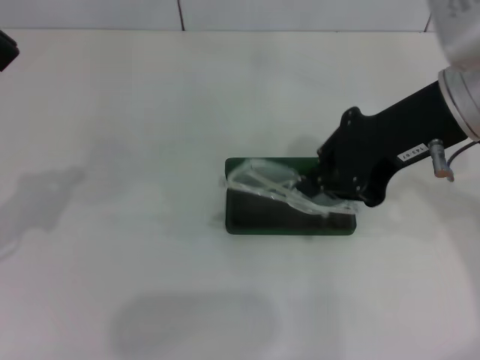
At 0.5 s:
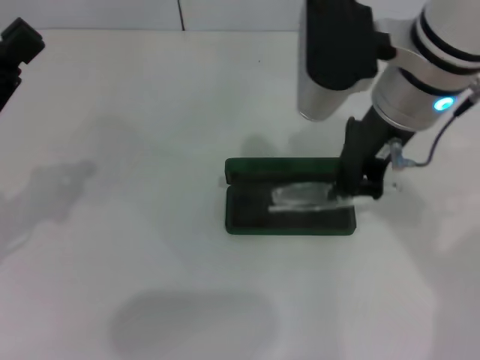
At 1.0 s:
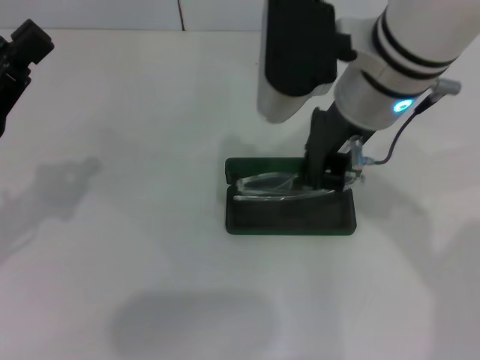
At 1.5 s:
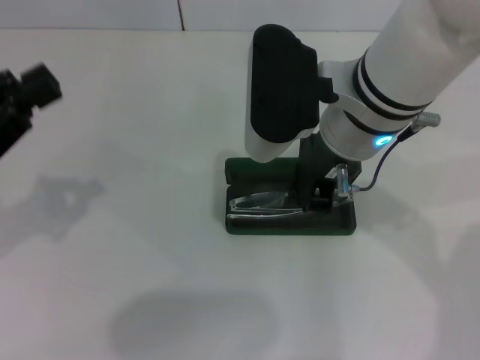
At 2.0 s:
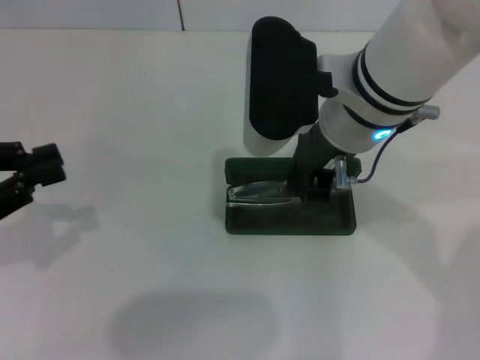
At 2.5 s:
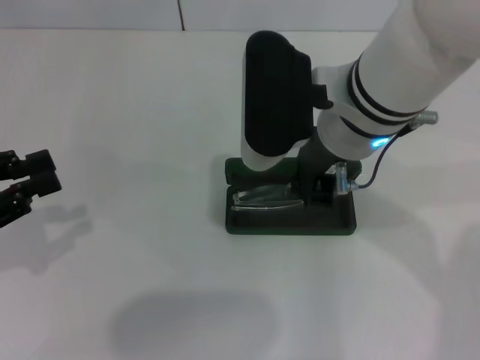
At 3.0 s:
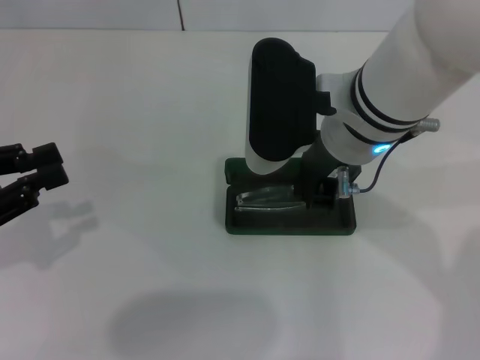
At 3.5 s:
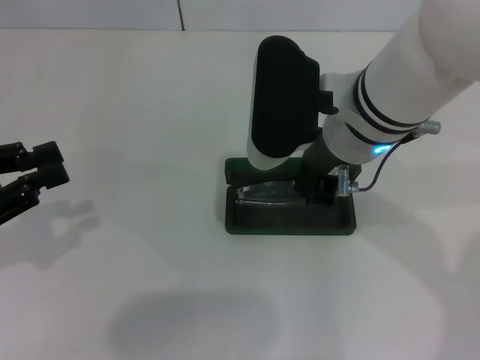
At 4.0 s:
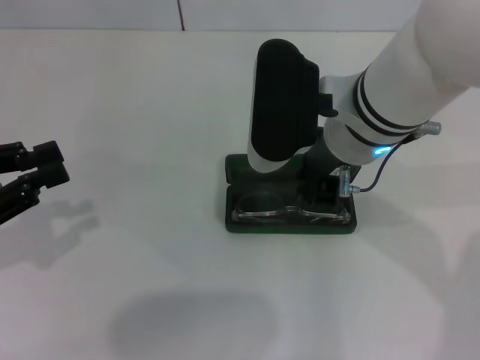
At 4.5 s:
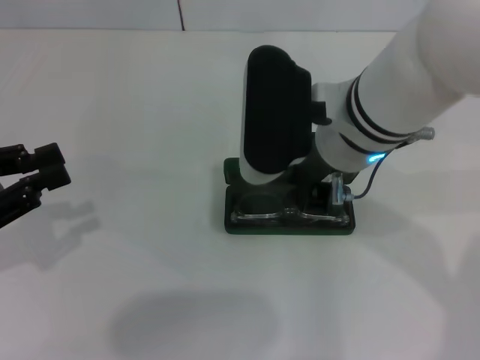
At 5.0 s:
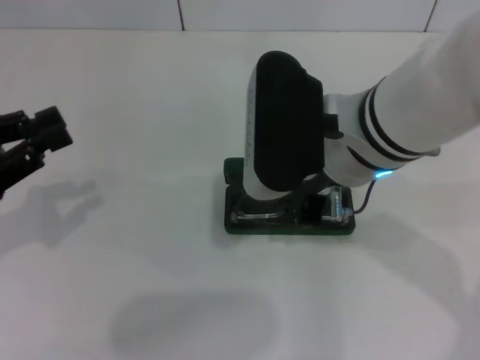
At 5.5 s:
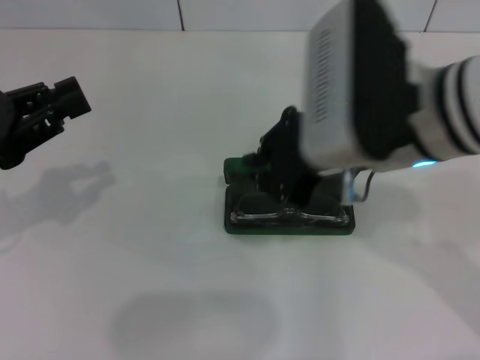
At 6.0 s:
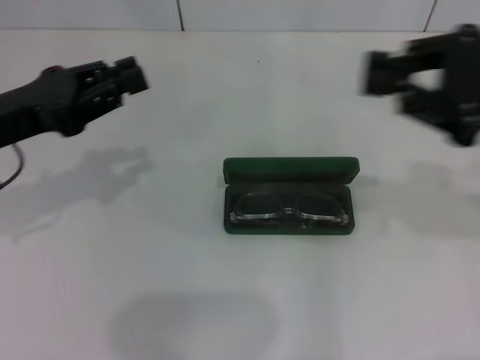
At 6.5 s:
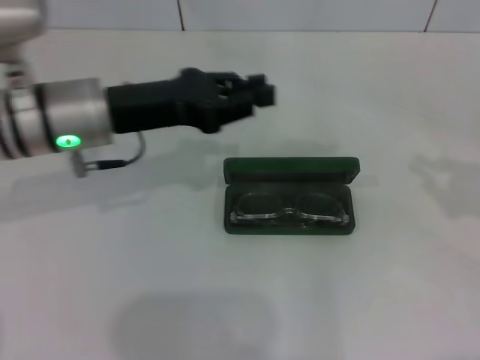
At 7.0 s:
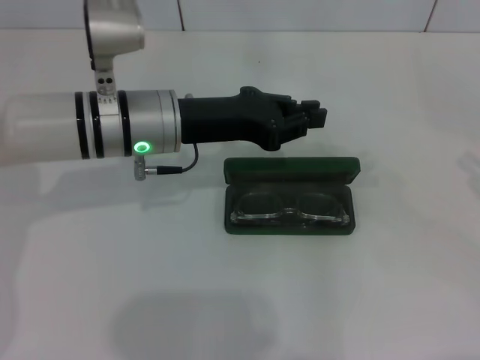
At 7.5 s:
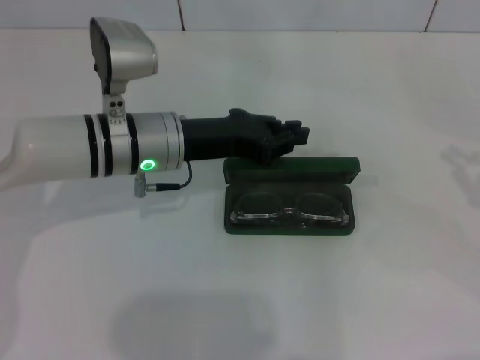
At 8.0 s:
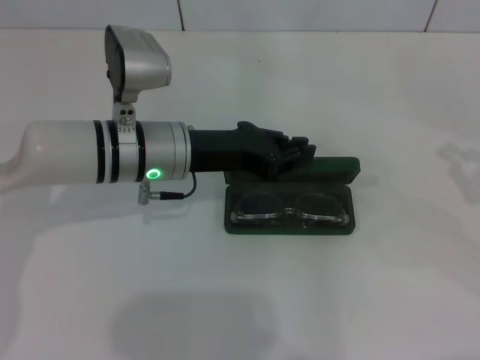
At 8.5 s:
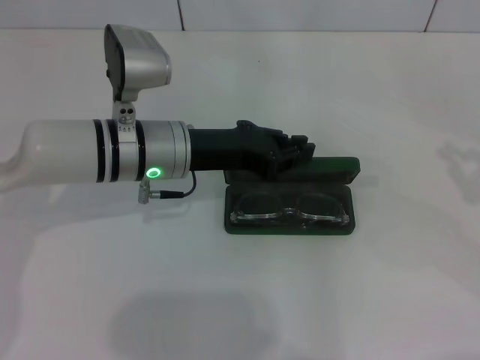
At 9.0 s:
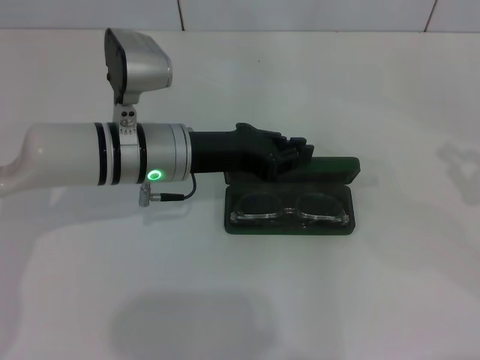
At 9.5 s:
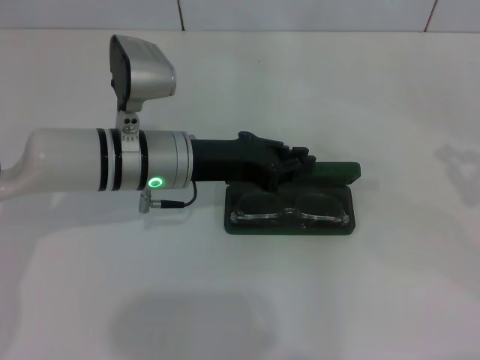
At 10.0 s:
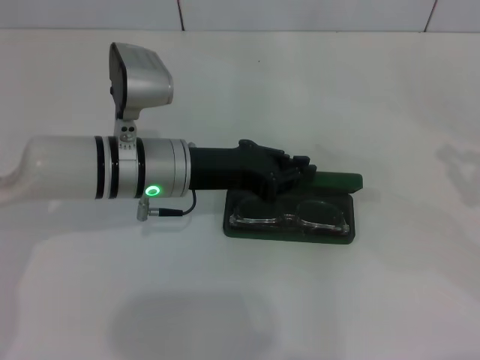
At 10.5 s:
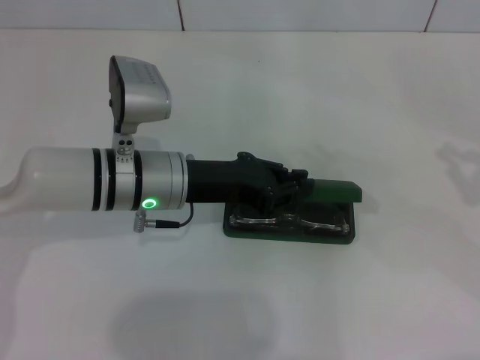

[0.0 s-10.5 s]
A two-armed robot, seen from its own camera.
Step, 0.0 to 3.5 s: Put the glasses into the case with your right hand.
0.0 to 2.0 s: The right gripper travels to the left by about 10 cm.
2.0 to 4.0 s: The grippers stay close to where they were, moving slightly.
4.0 to 6.5 s: The left gripper travels to the right and forward by about 20 cm. Meanwhile the right gripper goes some 30 cm to the right.
6.5 to 8.5 s: The left gripper heads to the right, covering approximately 5 cm.
8.5 to 10.5 s: There are only small adjustments of the grippers.

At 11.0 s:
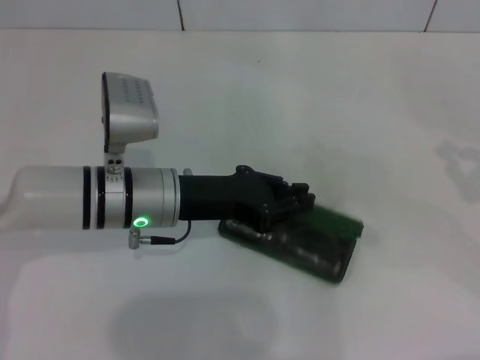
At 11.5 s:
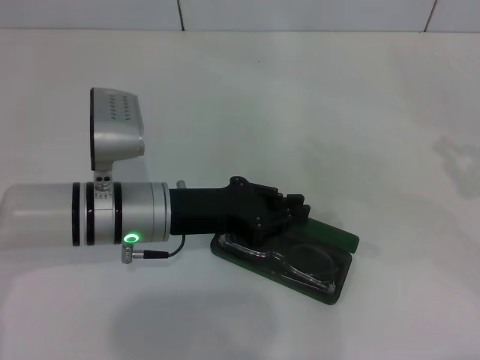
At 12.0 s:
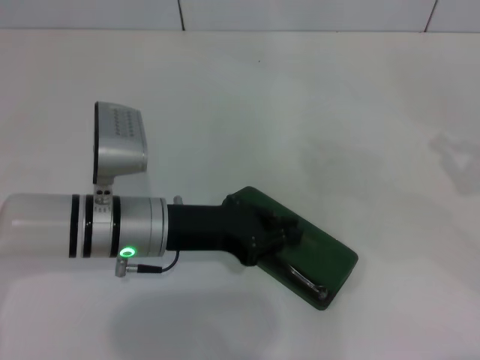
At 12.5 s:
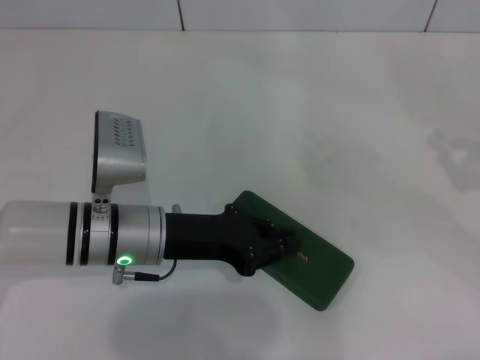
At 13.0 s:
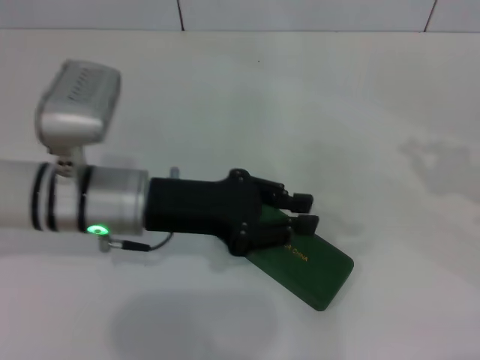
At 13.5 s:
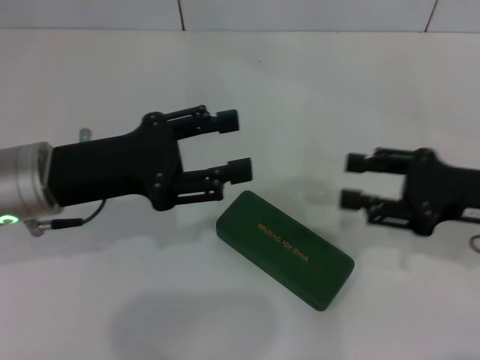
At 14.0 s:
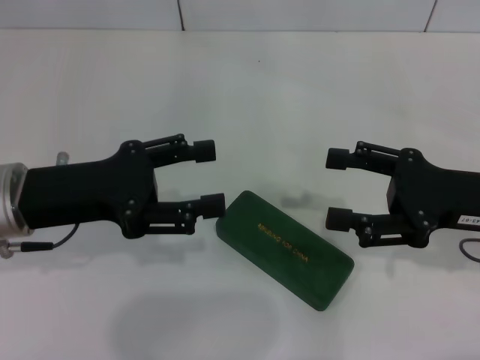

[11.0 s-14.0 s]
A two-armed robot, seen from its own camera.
11.0 to 12.5 s: The grippers make only small movements.
12.5 to 14.0 s: The right gripper heads to the left, covering some 15 cm, and opens up, while the left gripper shifts roughly 10 cm to the left and upward, and opens its fingers.

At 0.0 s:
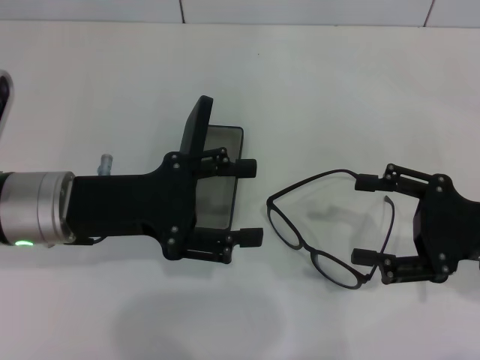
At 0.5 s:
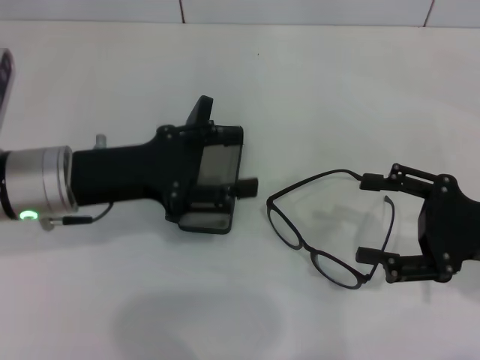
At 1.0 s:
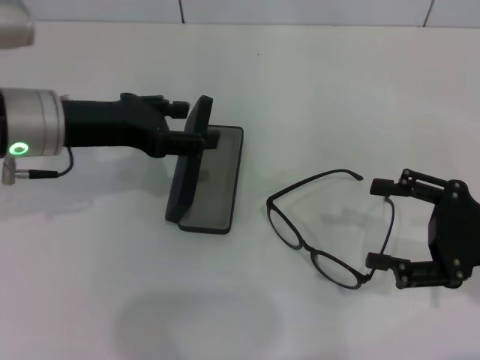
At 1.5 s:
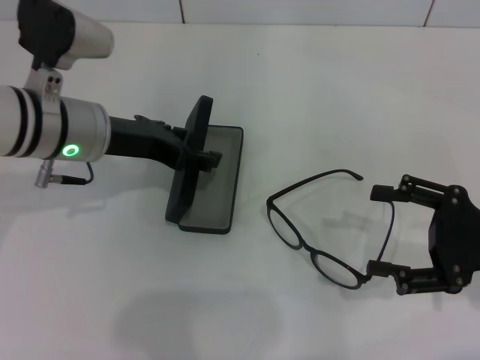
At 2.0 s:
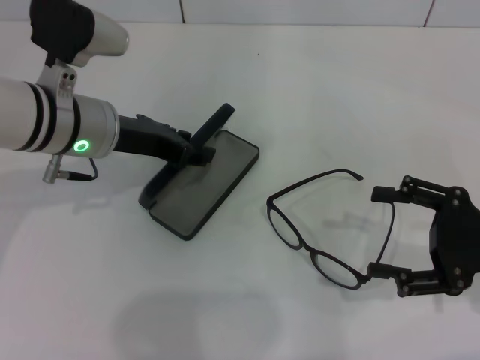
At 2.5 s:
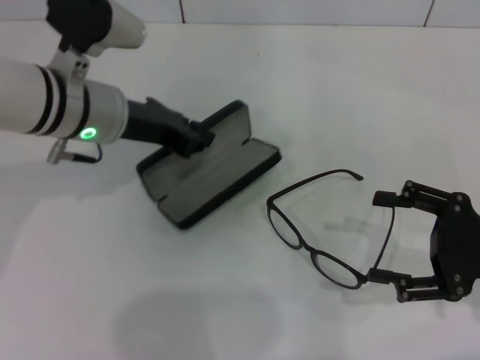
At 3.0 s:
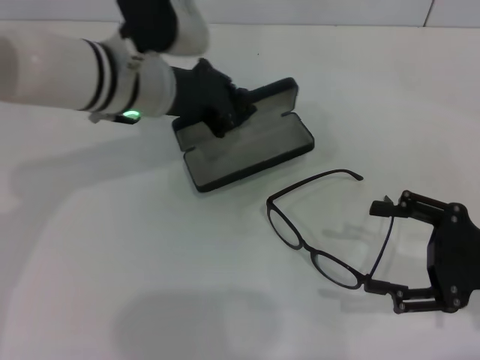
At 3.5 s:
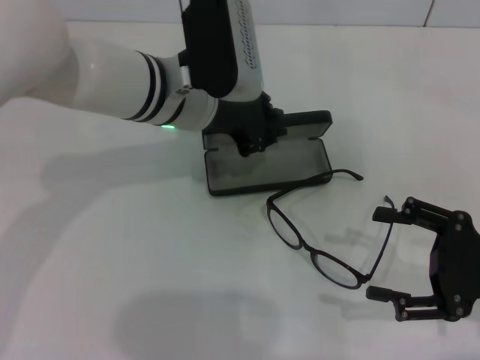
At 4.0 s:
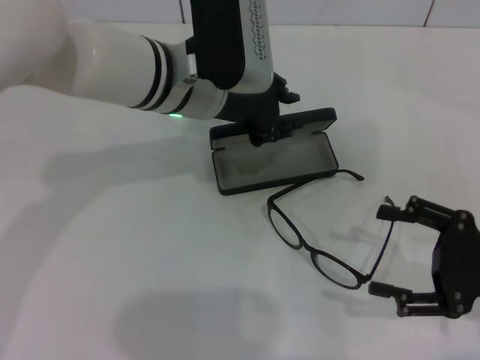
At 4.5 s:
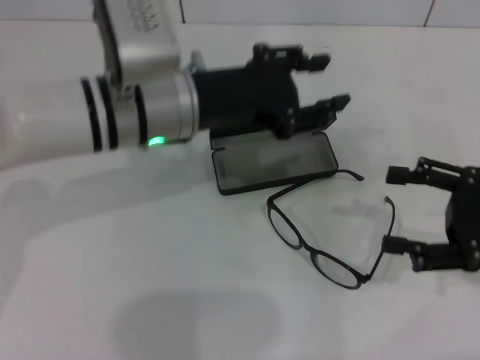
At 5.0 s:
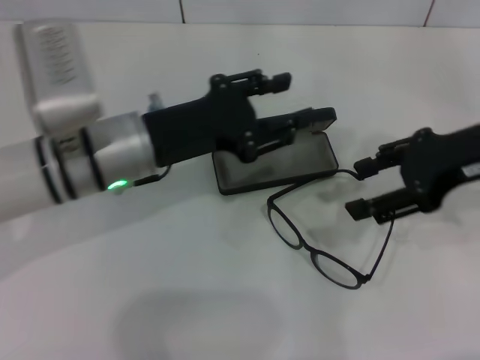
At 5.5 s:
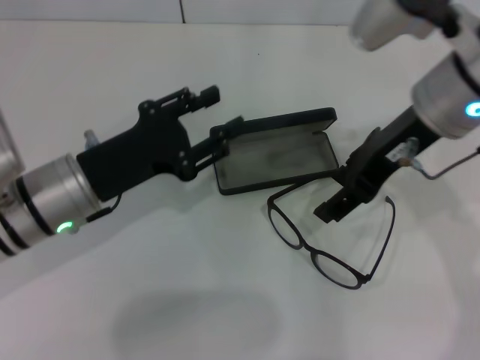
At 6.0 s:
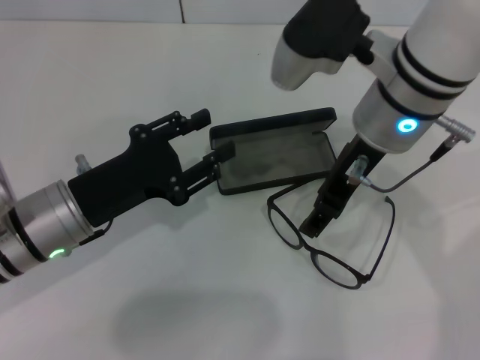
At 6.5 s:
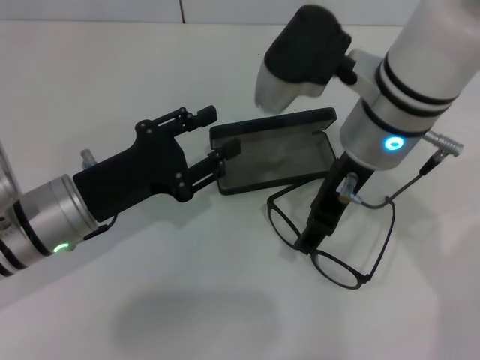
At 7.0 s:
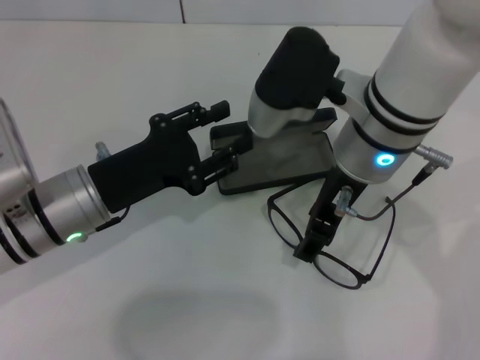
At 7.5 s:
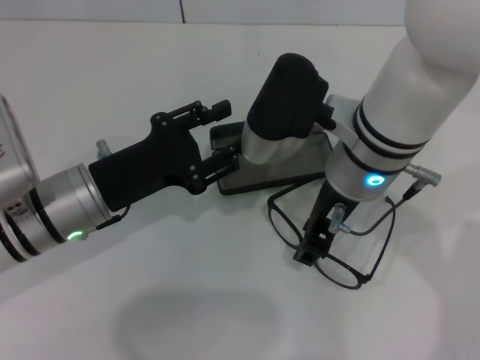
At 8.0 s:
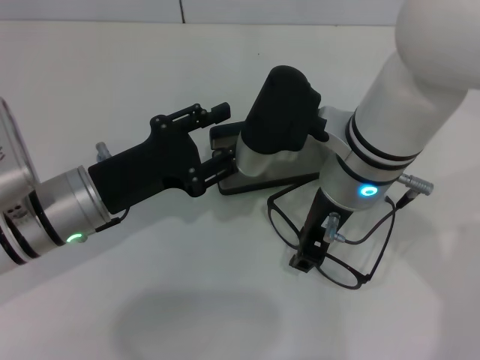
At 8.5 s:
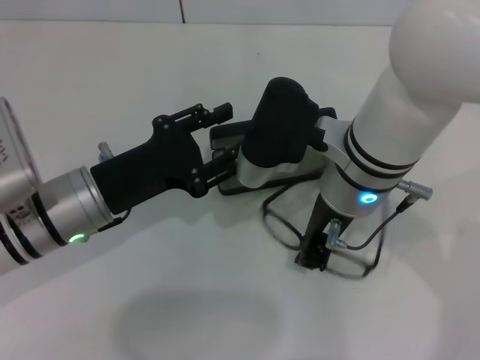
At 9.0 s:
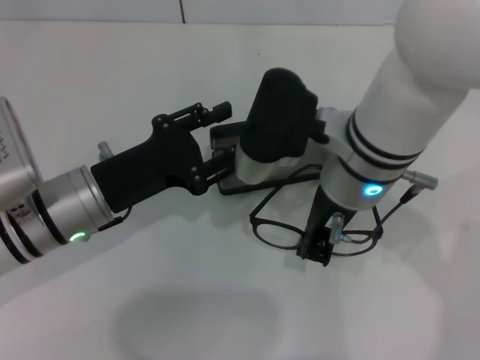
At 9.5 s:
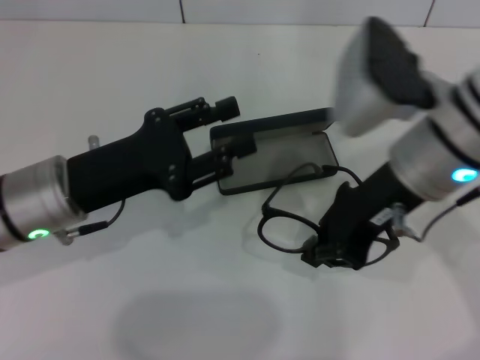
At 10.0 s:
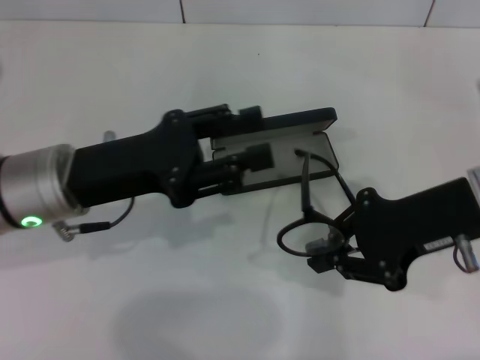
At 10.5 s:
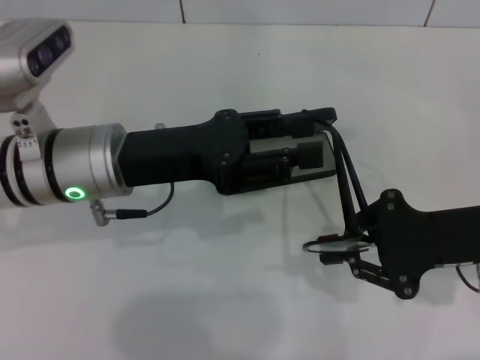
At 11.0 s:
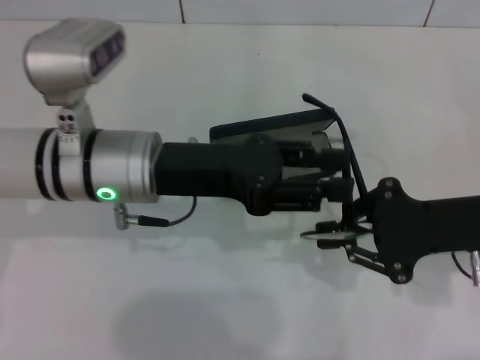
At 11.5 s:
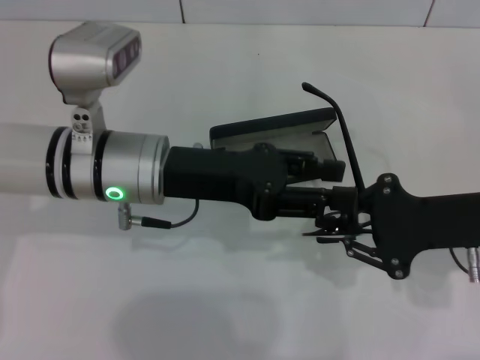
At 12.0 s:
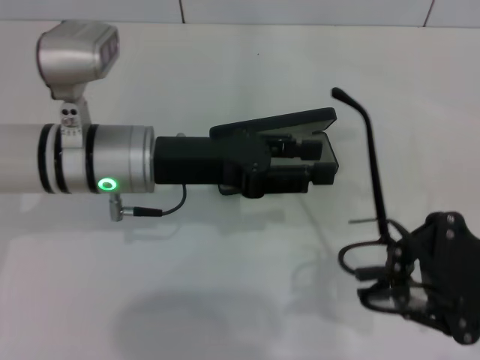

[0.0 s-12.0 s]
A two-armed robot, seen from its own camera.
Step, 0.0 to 2.0 s: Grab the glasses case with your left hand.
Step, 2.5 to 3.5 s: Place the glasses case in the center of the table with your left hand.
Step, 4.0 to 8.5 s: Grab the eyeglass frame with your right hand.
0.0 to 2.0 s: The left gripper travels forward by some 10 cm.
2.0 to 4.0 s: The left gripper moves to the right, some 10 cm, and closes its fingers.
4.0 to 6.0 s: The right gripper heads to the left, upward and forward, covering about 25 cm. Meanwhile the left gripper is displaced to the left, backward and downward by roughly 20 cm, and opens.
6.0 to 8.0 s: The right gripper changes place by approximately 5 cm.
8.0 to 10.0 s: The left gripper travels upward by some 5 cm. Meanwhile the right gripper goes about 15 cm to the right, and closes up.
10.0 to 12.0 s: The right gripper shifts about 10 cm to the right and backward, while the left gripper is displaced to the right by approximately 5 cm.
